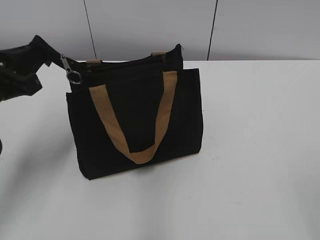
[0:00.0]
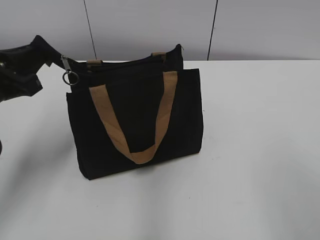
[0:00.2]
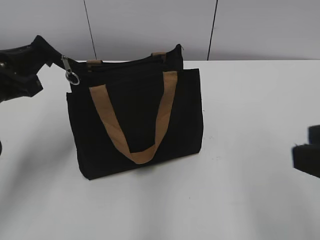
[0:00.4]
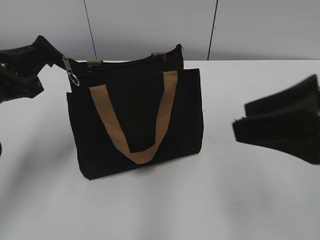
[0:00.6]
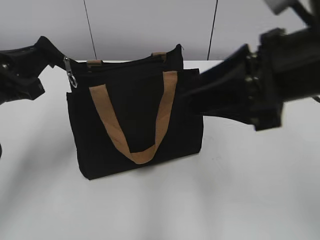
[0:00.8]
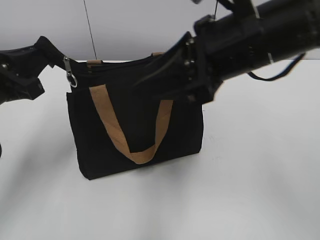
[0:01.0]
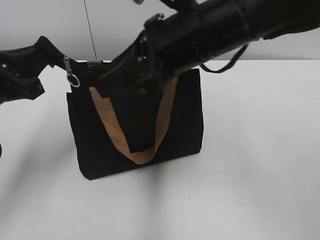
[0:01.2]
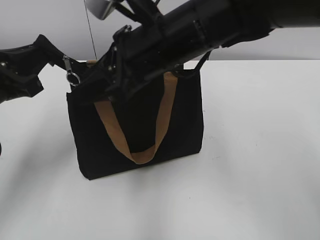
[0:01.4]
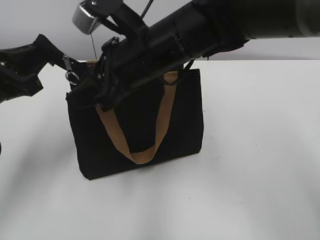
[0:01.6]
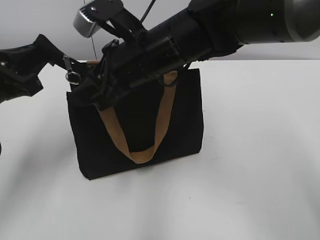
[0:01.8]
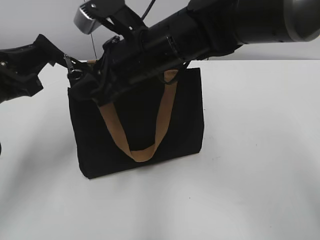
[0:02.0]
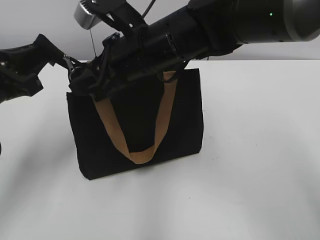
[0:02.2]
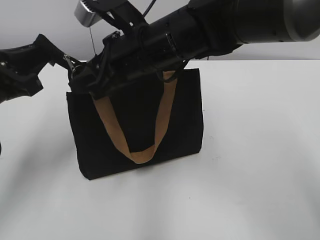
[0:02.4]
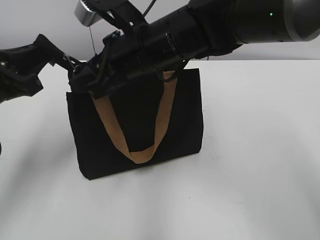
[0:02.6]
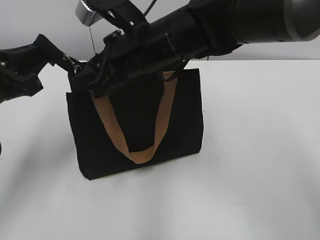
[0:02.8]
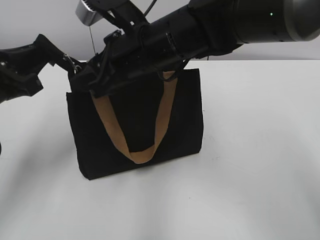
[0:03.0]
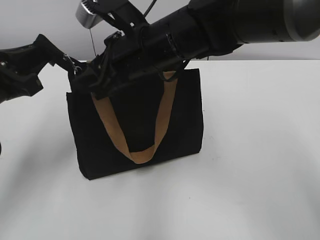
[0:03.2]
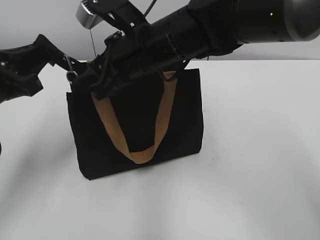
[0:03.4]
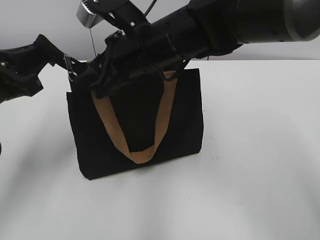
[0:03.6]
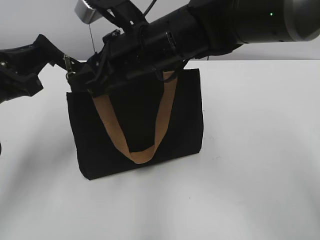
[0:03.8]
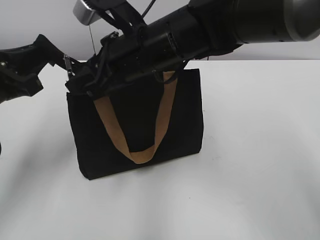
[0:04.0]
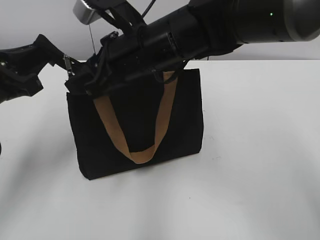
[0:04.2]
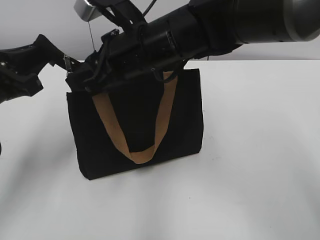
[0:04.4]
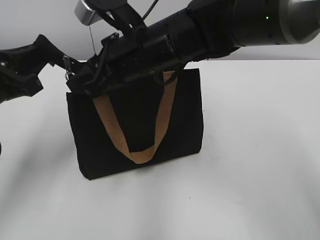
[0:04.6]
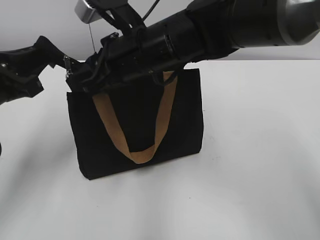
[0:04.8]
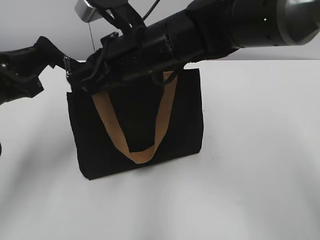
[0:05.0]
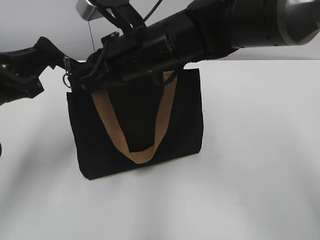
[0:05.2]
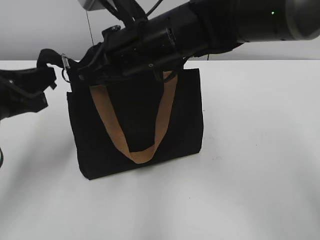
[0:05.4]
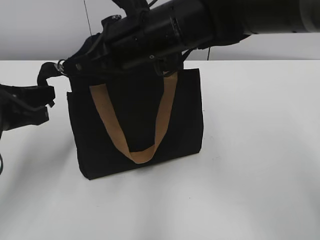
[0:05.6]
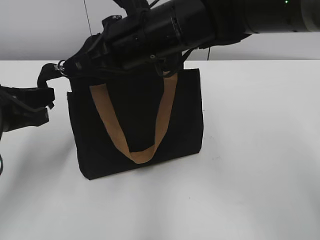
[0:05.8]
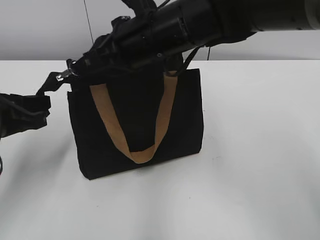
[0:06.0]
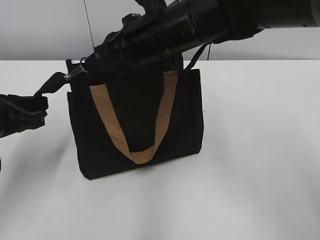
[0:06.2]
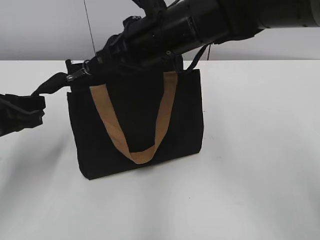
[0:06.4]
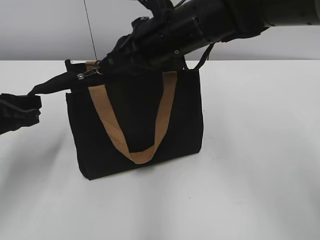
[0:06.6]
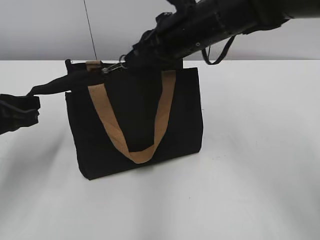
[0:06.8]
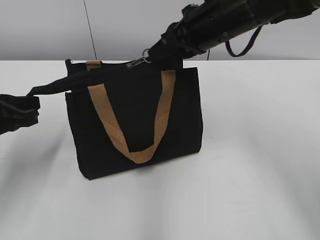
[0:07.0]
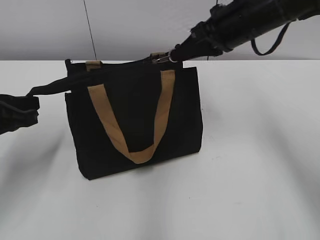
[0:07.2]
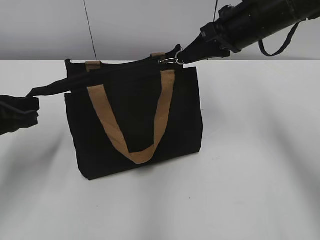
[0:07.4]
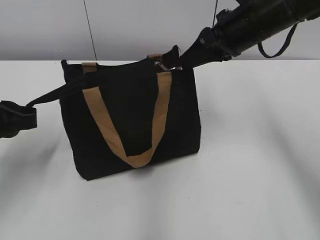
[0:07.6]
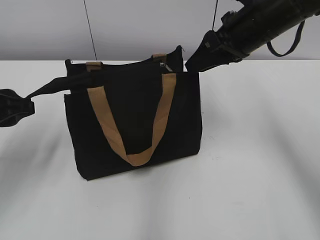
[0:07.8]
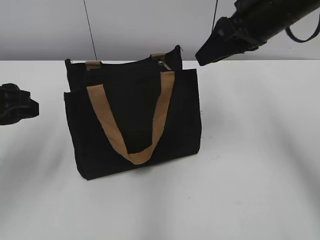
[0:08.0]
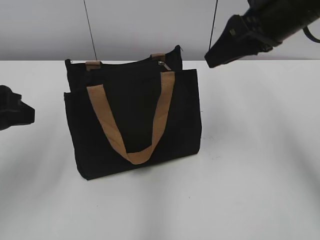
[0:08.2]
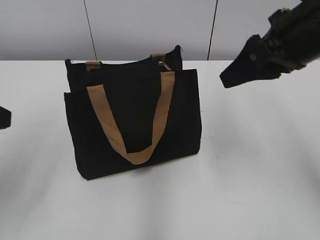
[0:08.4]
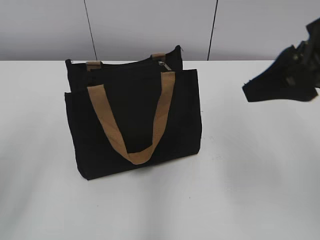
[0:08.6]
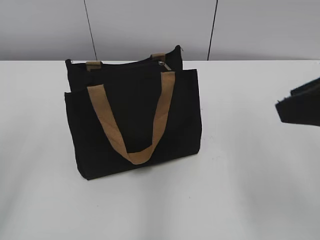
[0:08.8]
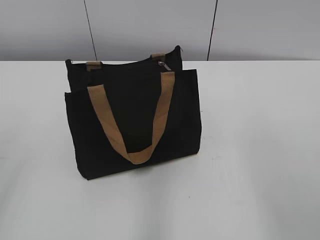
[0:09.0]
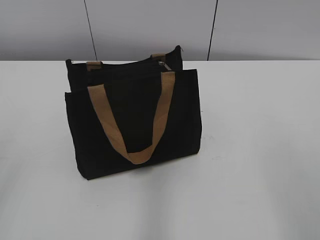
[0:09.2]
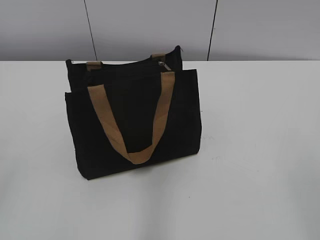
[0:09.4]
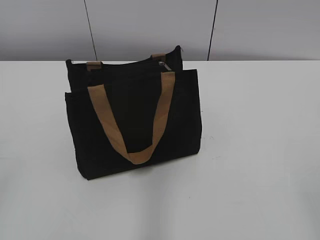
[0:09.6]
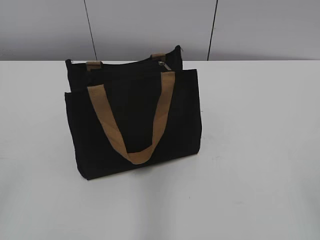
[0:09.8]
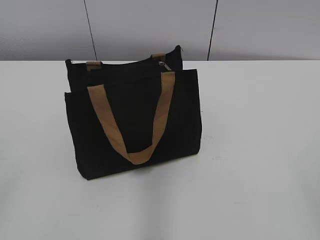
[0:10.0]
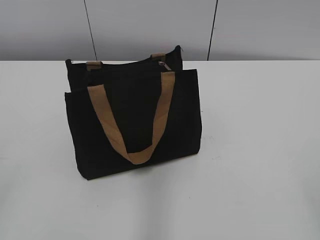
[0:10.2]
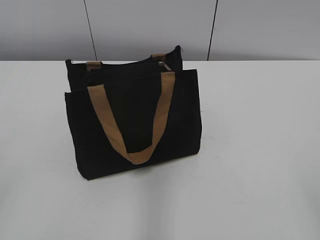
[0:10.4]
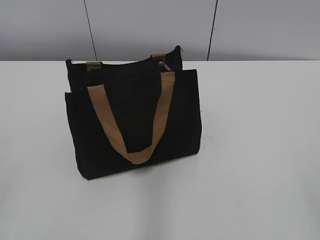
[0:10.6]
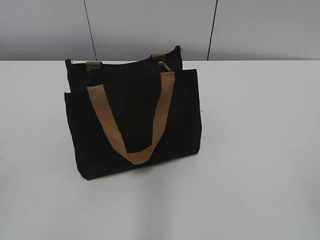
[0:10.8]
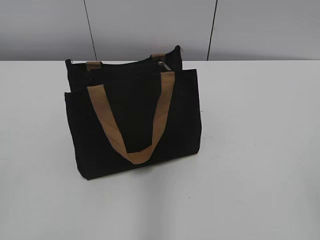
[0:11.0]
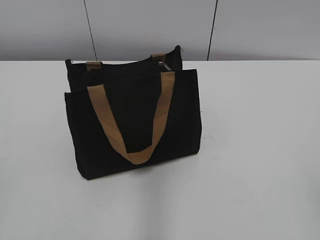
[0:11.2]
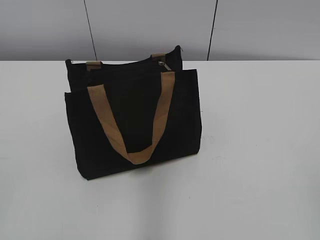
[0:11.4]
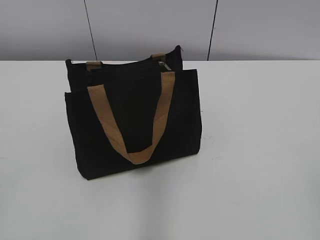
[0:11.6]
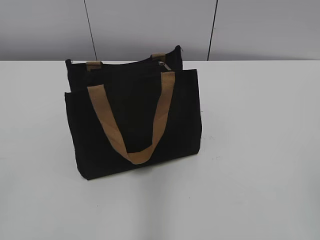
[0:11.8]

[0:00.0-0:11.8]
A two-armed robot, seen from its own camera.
Step, 0:00.0 to 0:07.6: Zip up the bag with your right hand.
0:00.0 to 0:01.4: The right gripper heads forward and to the left, covering some 40 cm.
0:01.4 to 0:03.0: The grippers make only small movements.
0:03.0 to 0:04.4: The two grippers keep their place.
0:04.4 to 0:06.0: The right gripper closes up.
0:06.0 to 0:07.4: The right gripper heads to the right, covering some 15 cm.
0:07.4 to 0:08.8: The right gripper heads backward, covering roughly 20 cm, and opens up; the left gripper travels upward and backward by about 15 cm, and opens.
0:08.8 to 0:10.4: The right gripper is displaced backward and to the right by approximately 20 cm.
